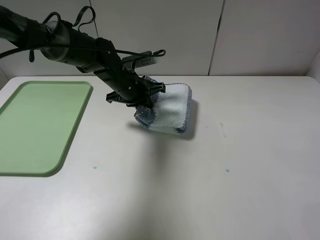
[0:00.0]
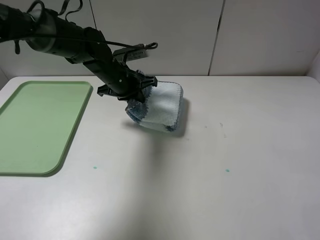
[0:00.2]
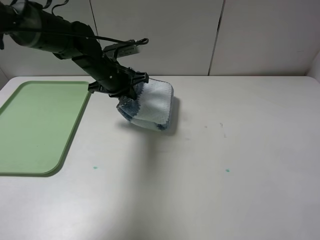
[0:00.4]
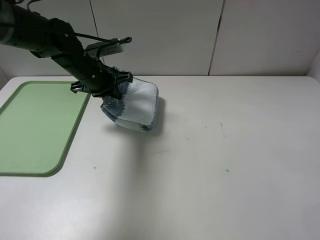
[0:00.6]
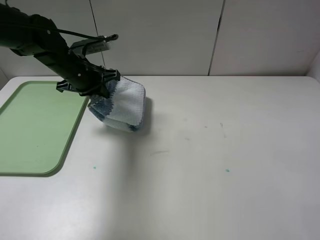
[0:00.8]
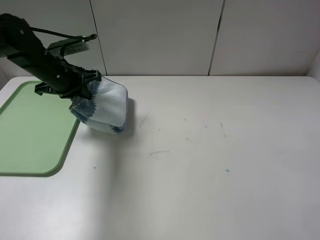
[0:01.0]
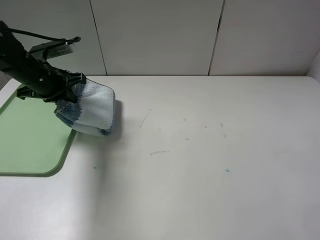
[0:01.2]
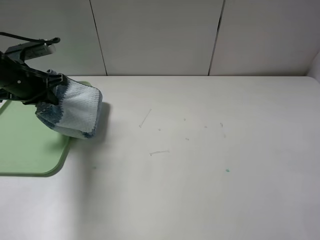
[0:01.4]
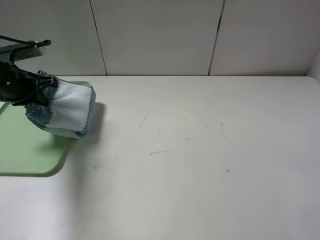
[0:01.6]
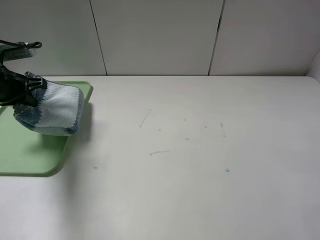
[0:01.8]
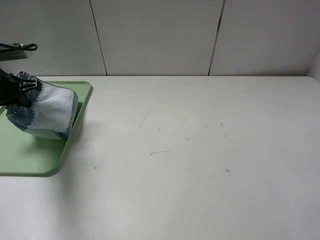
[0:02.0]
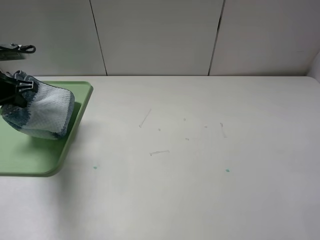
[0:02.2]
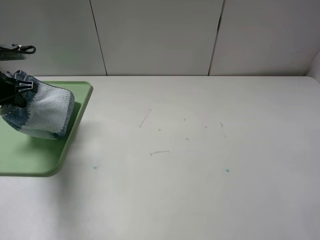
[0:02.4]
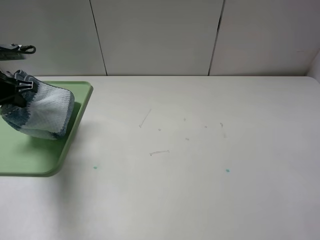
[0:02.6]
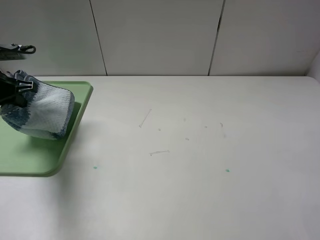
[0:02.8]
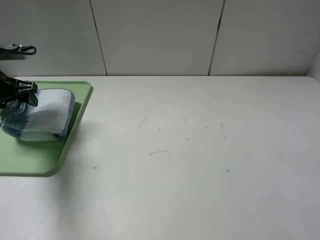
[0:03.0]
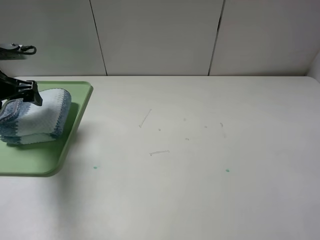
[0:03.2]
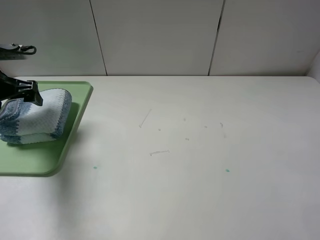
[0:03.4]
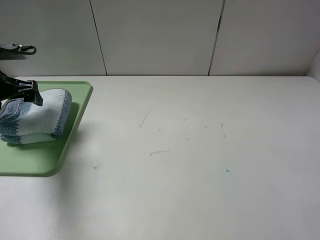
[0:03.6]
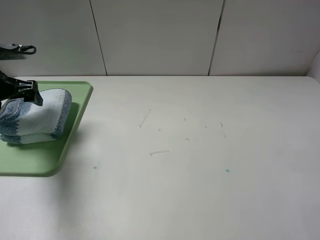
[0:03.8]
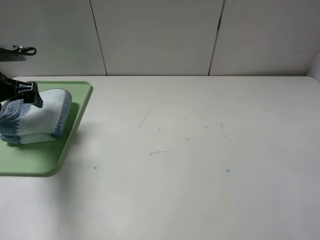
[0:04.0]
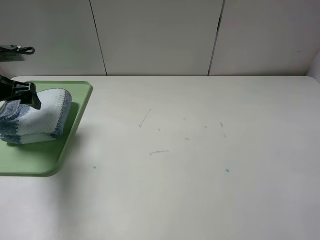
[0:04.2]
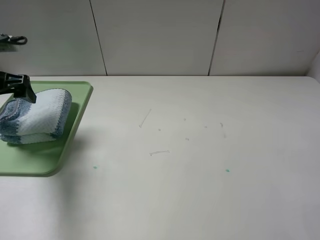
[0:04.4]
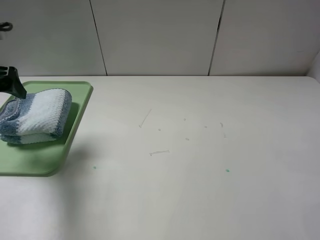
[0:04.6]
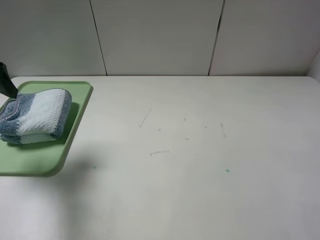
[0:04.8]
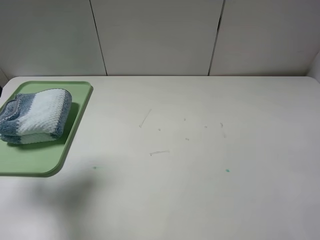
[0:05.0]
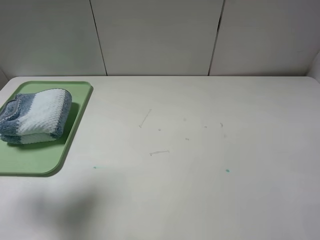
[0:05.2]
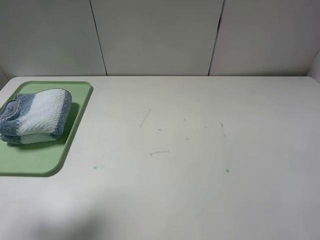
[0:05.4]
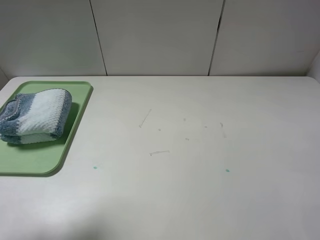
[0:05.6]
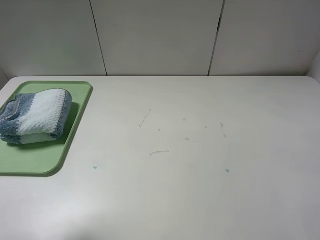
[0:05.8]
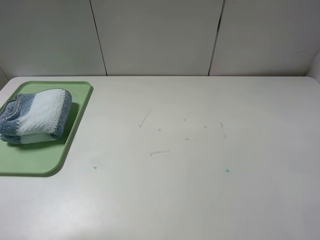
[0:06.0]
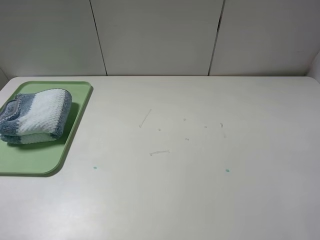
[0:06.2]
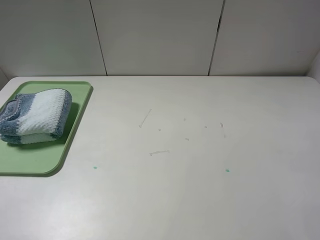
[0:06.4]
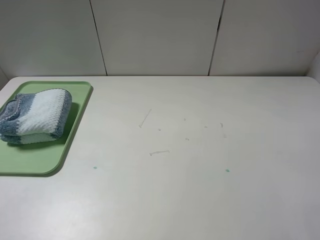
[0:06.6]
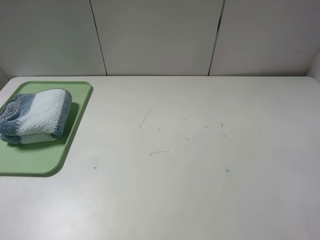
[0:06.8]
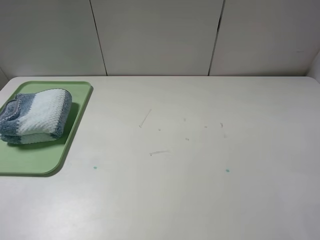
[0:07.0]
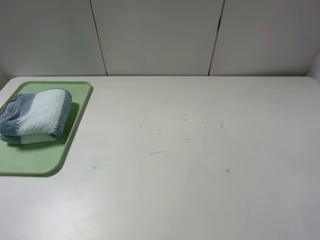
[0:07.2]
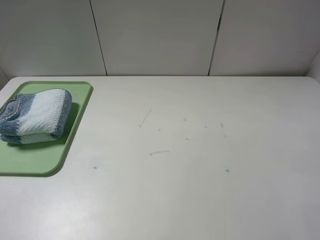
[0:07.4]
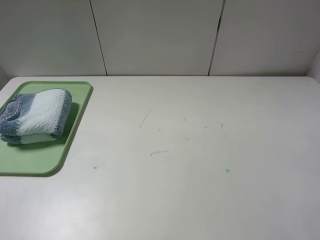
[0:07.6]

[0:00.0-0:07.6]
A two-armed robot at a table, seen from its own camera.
0:00.0 to 0:01.6: The left gripper heads to the left, covering some 25 cm.
0:01.6 to 0:03.0: The left gripper opens its fingers.
0:03.0 to 0:04.6: The left gripper shifts approximately 10 cm upward and backward.
0:04.6 to 0:06.0: The left gripper moves backward, about 20 cm.

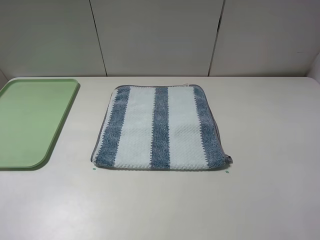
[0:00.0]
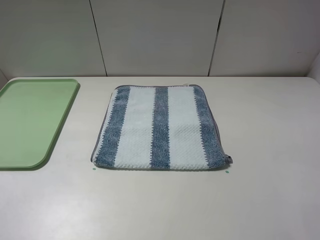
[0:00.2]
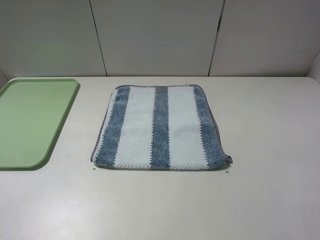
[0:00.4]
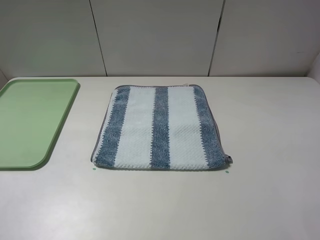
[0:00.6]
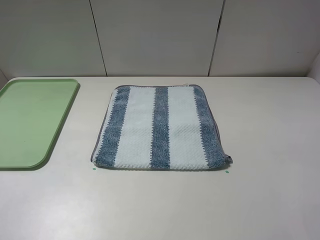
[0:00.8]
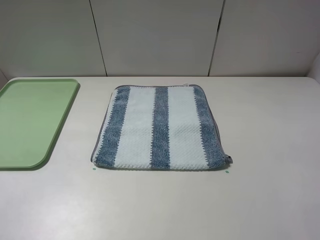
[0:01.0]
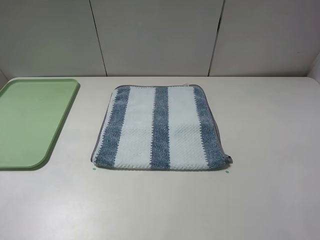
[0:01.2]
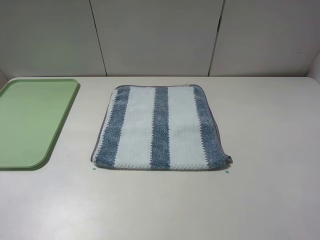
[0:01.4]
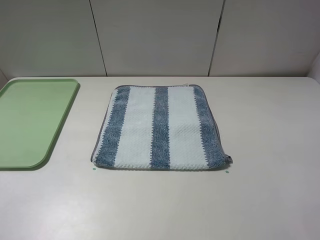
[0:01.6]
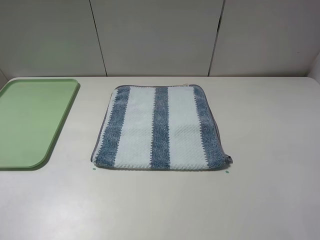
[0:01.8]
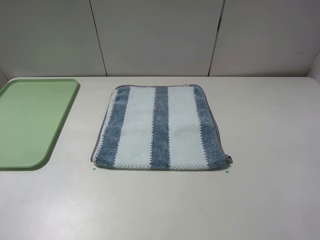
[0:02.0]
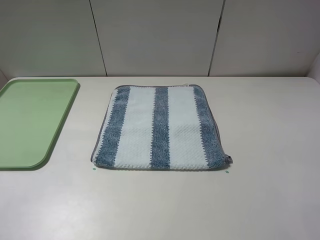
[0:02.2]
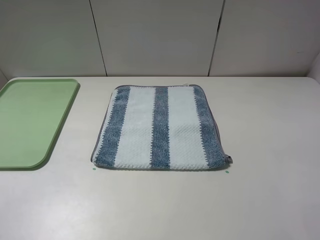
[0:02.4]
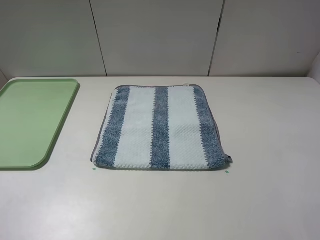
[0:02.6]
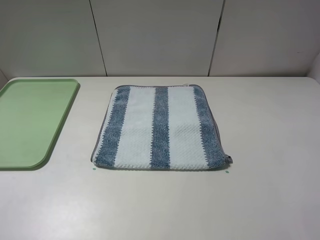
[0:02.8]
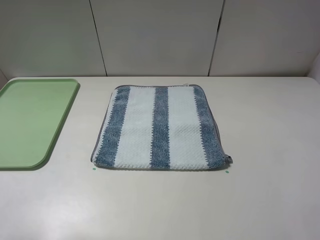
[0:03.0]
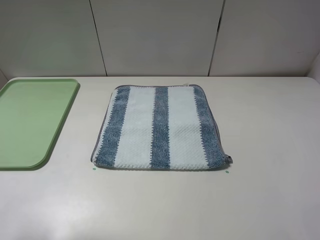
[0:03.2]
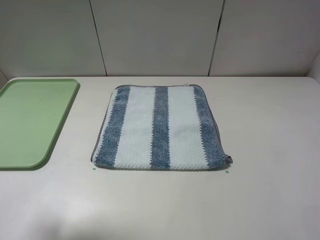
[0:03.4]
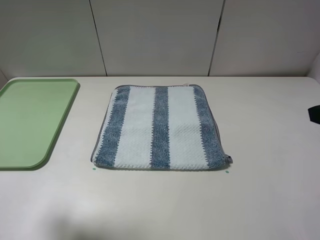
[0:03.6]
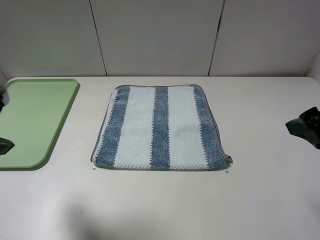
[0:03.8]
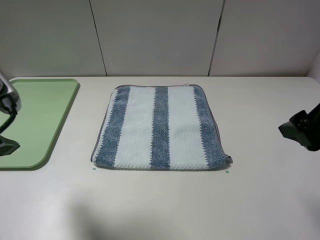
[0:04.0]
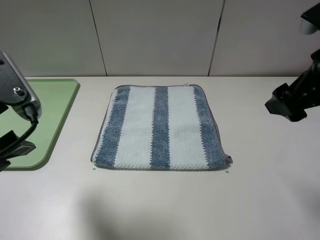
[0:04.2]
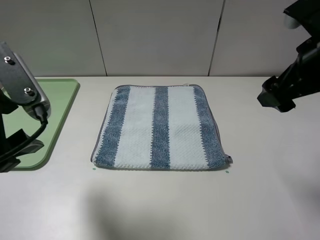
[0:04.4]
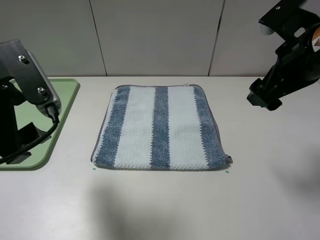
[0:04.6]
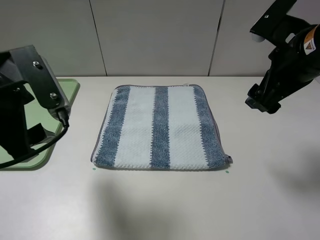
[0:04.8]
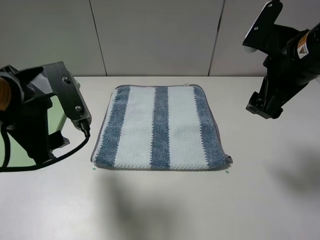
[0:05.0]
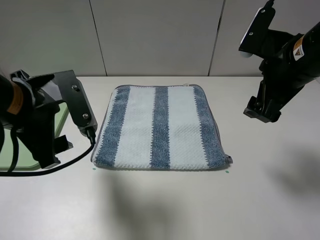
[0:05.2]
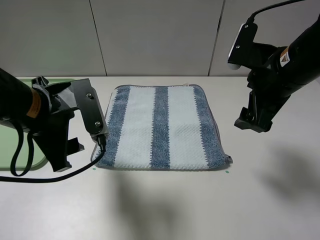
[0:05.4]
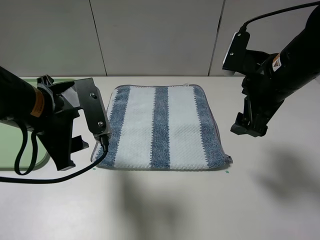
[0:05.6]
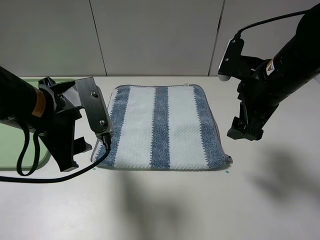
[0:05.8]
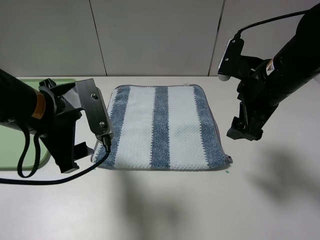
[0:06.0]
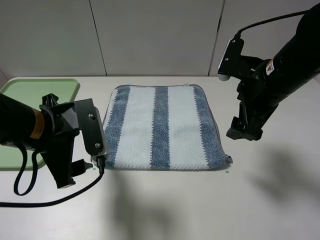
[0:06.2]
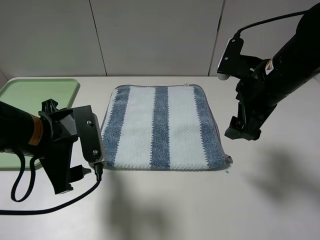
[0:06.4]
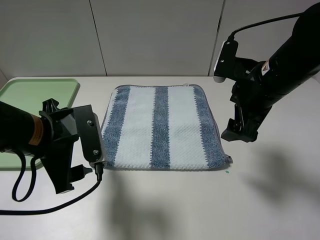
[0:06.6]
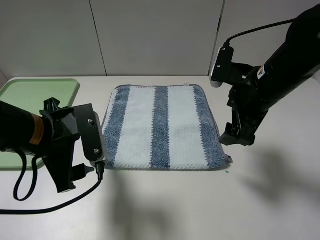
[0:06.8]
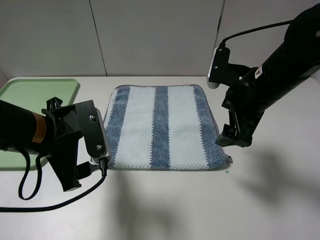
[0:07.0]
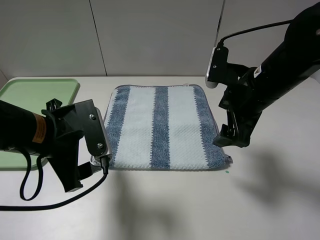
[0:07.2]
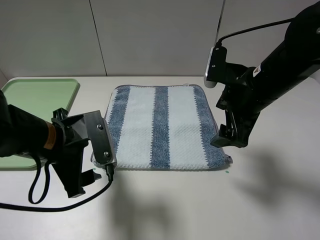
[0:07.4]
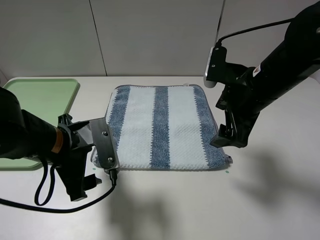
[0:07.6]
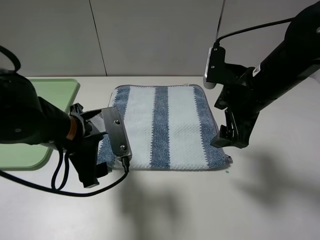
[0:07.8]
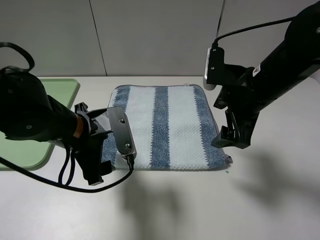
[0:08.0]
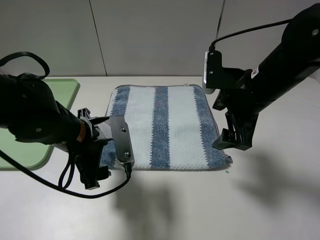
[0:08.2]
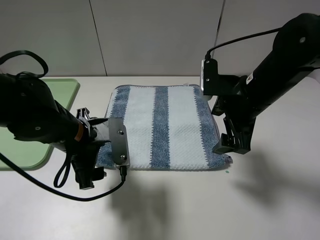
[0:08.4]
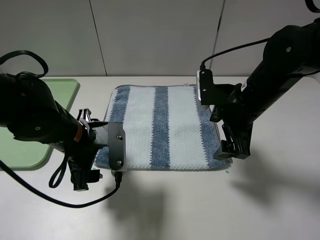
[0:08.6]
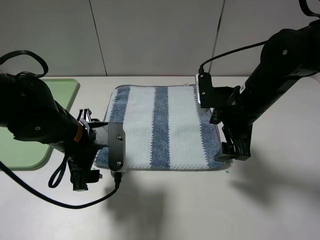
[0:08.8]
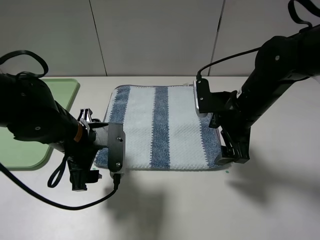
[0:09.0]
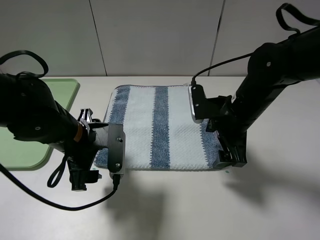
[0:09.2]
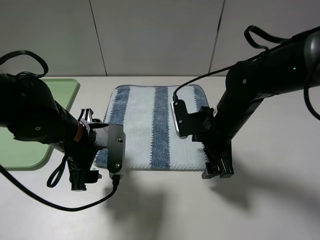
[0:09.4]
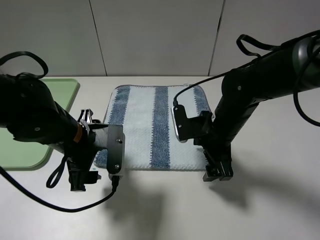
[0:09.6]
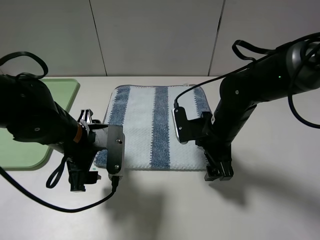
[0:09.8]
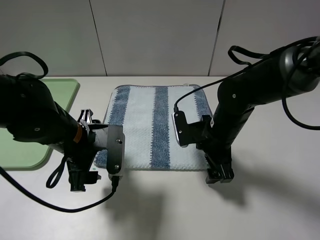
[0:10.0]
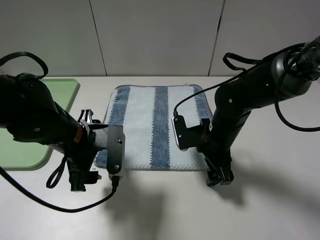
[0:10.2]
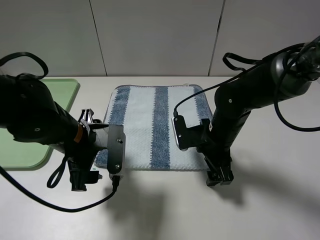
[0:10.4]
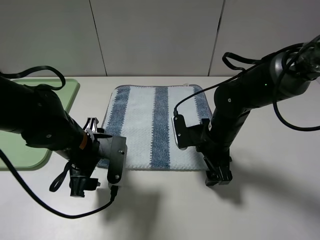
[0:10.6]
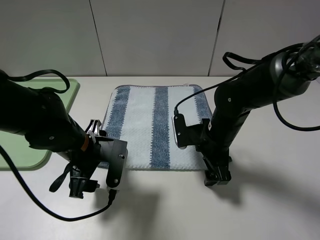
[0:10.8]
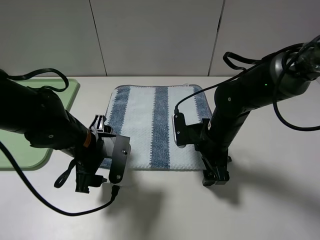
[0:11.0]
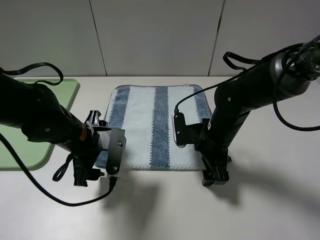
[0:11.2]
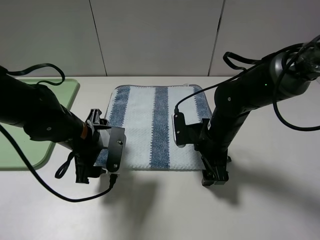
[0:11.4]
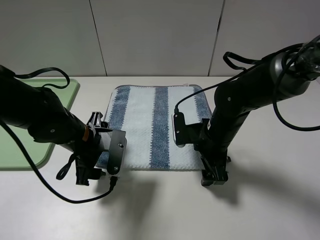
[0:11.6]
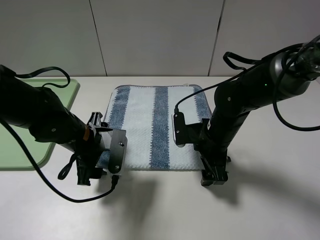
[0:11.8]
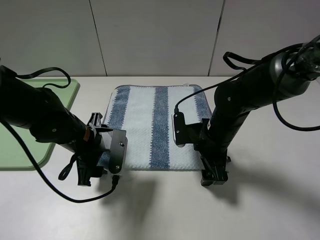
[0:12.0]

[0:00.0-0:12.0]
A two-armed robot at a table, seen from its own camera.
0:00.0 to 0:01.6: Both grippers stay about where they are.
0:03.0 to 0:04.4: The right gripper is displaced forward and to the left by roughly 15 cm, while the left gripper goes approximately 15 cm to the right and forward.
0:04.4 to 0:06.0: The right gripper goes roughly 5 cm downward. Meanwhile the left gripper travels downward and to the right by approximately 10 cm.
0:06.0 to 0:07.6: The left gripper goes roughly 5 cm downward.
0:07.6 to 0:09.0: The right gripper travels downward by some 5 cm.
0:09.0 to 0:10.4: The right gripper moves downward, approximately 5 cm.
0:10.4 to 0:12.0: There are only small adjustments of the grippers.

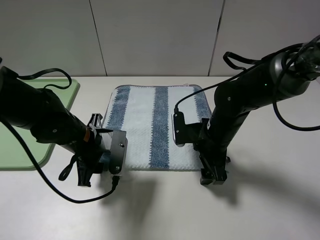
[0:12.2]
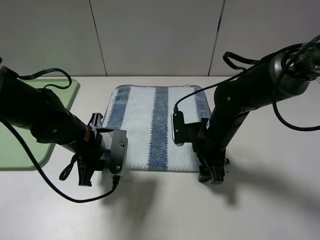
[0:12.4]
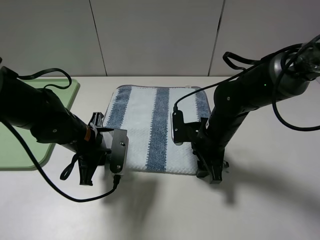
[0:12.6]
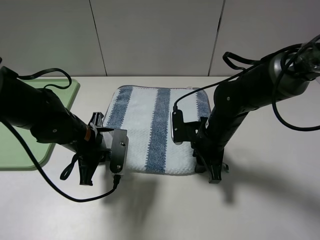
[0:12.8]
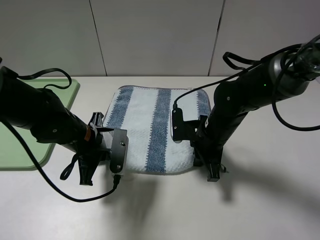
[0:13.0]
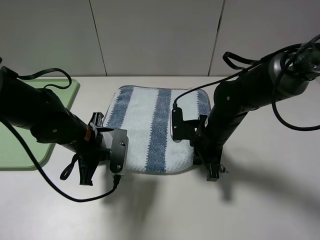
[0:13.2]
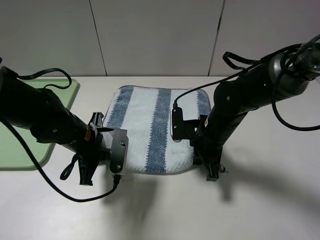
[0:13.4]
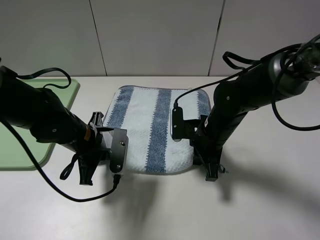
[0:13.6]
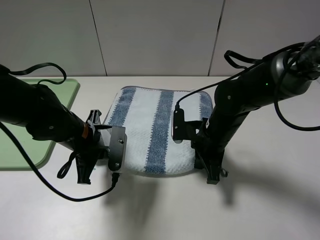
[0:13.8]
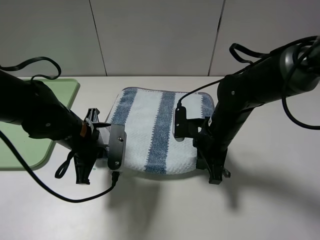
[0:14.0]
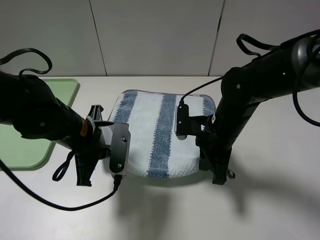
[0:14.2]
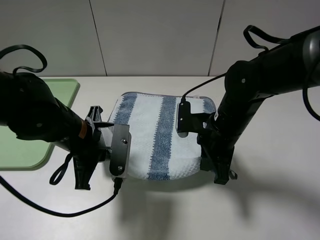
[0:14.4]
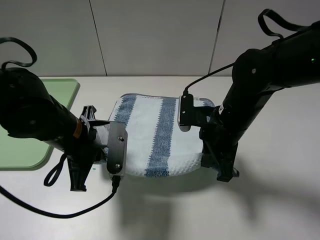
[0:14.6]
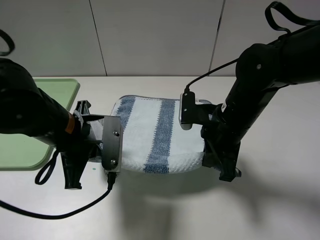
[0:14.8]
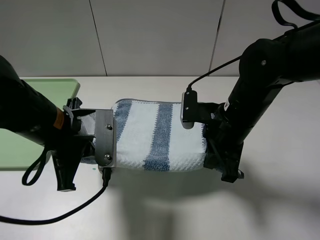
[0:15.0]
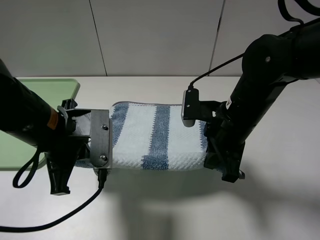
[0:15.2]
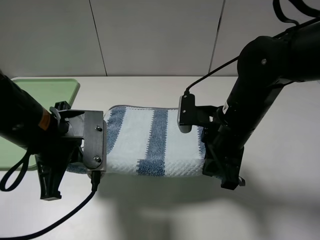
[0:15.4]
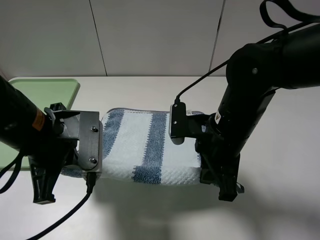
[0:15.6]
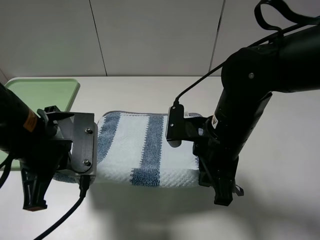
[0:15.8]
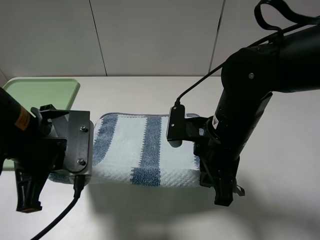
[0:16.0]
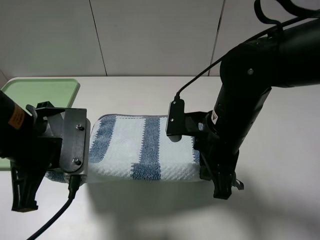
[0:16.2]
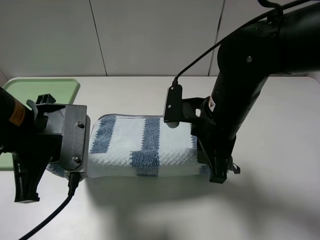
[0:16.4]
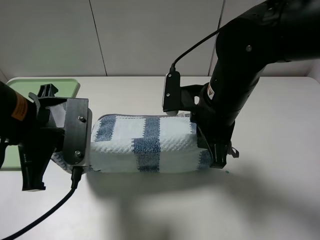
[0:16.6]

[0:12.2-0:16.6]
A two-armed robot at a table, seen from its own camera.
0:12.2 to 0:13.6: The left gripper closes, while the right gripper closes its fingers.
0:13.6 to 0:15.2: The left gripper heads upward and backward, covering about 10 cm. The right gripper travels upward by roughly 10 cm.
